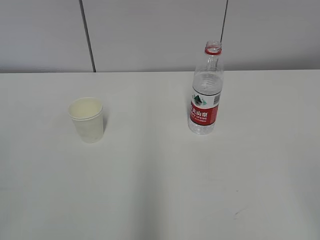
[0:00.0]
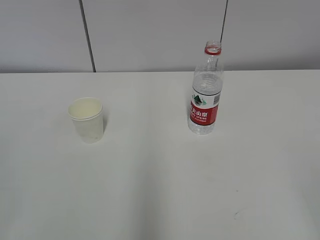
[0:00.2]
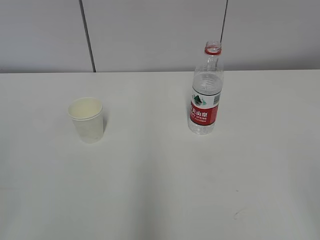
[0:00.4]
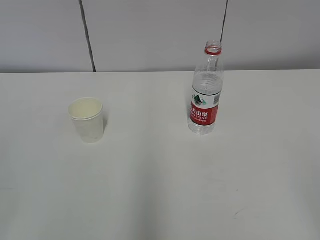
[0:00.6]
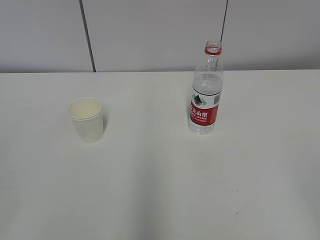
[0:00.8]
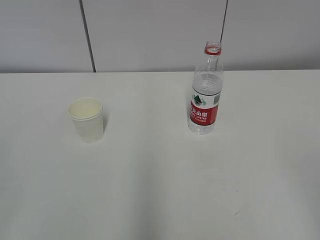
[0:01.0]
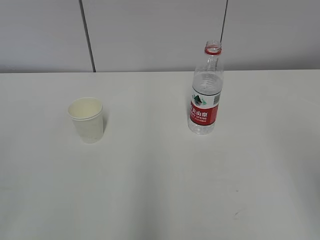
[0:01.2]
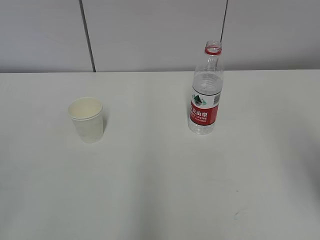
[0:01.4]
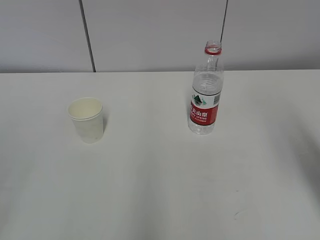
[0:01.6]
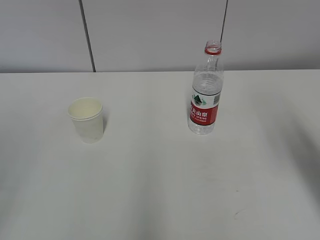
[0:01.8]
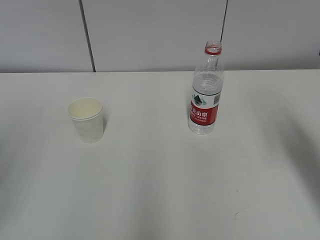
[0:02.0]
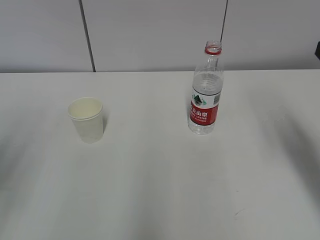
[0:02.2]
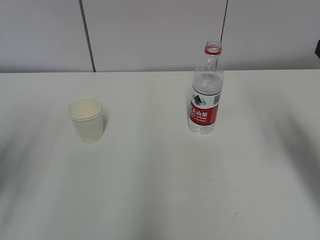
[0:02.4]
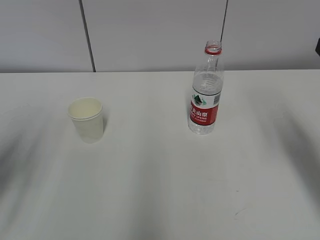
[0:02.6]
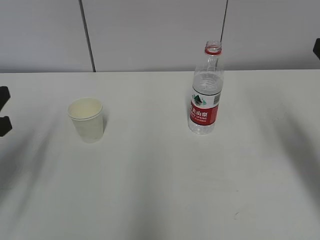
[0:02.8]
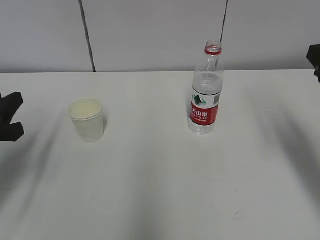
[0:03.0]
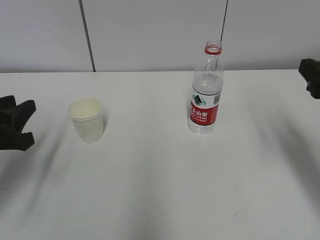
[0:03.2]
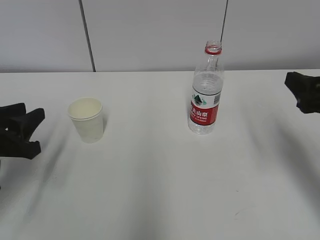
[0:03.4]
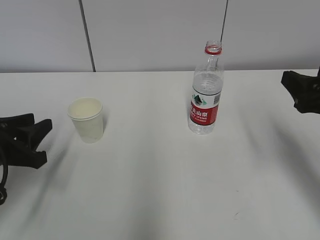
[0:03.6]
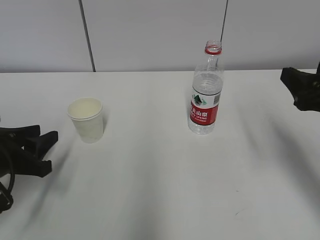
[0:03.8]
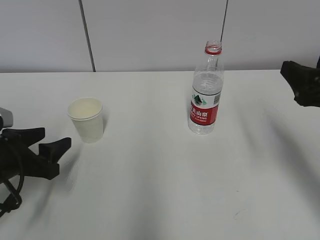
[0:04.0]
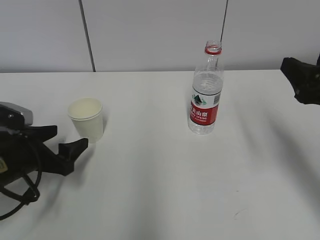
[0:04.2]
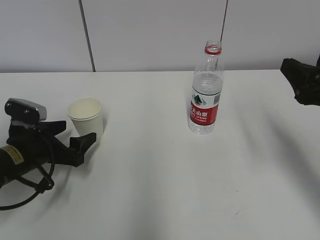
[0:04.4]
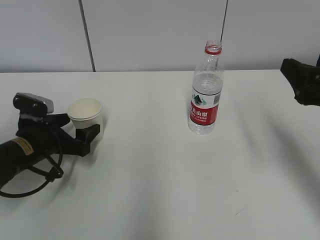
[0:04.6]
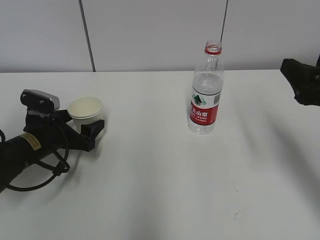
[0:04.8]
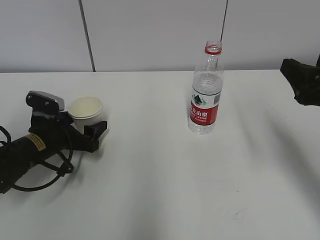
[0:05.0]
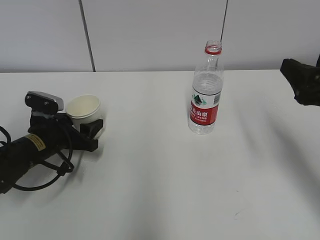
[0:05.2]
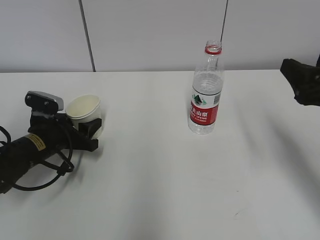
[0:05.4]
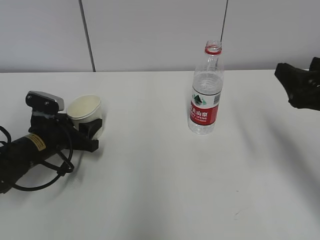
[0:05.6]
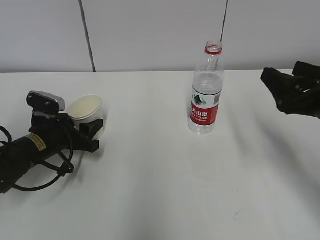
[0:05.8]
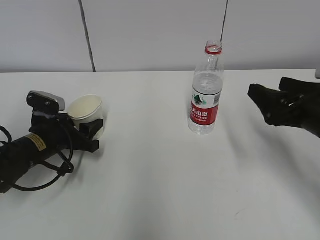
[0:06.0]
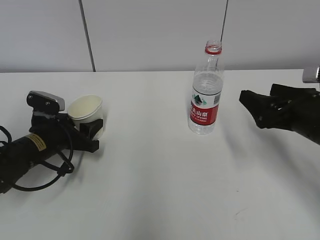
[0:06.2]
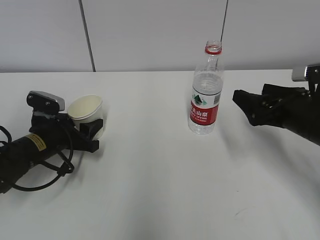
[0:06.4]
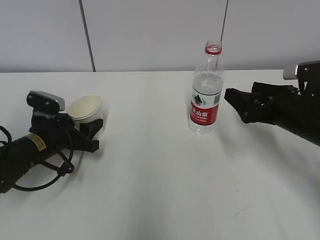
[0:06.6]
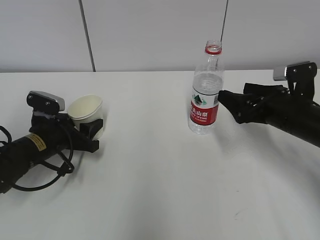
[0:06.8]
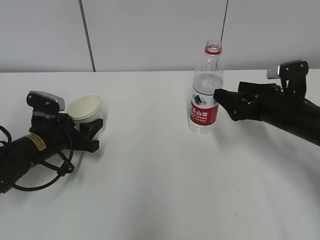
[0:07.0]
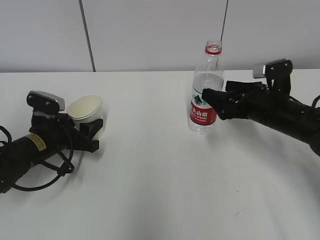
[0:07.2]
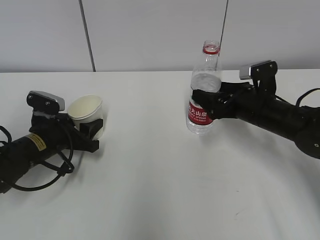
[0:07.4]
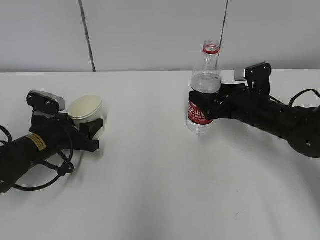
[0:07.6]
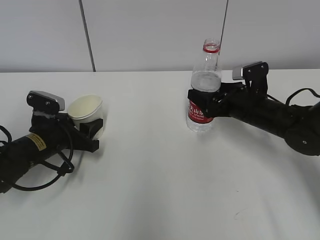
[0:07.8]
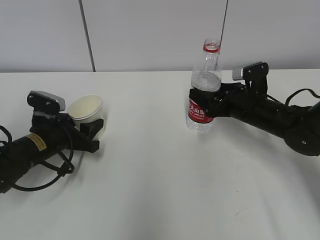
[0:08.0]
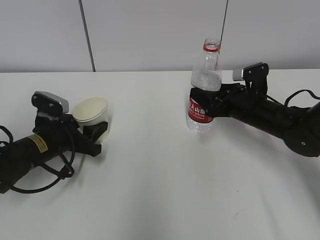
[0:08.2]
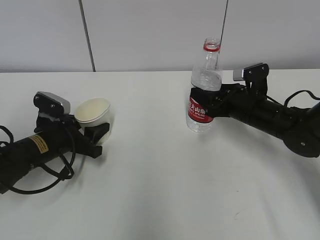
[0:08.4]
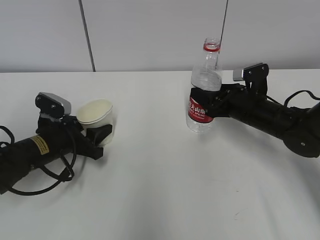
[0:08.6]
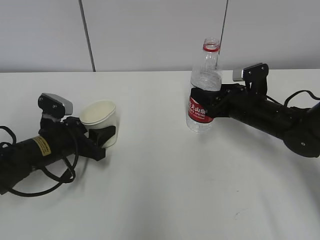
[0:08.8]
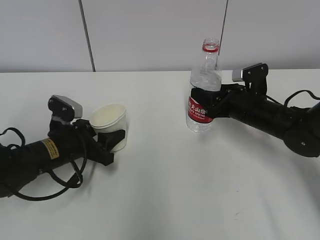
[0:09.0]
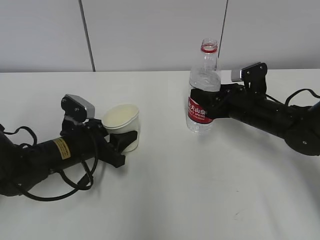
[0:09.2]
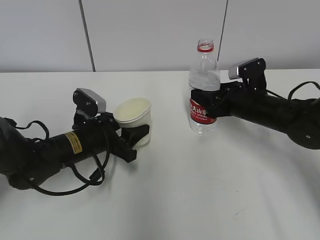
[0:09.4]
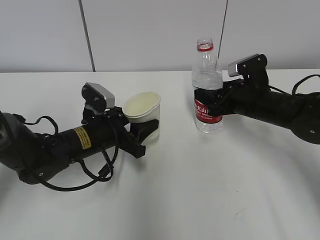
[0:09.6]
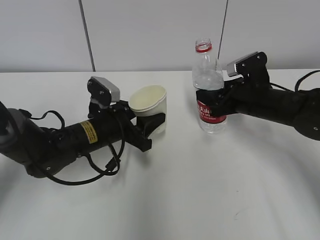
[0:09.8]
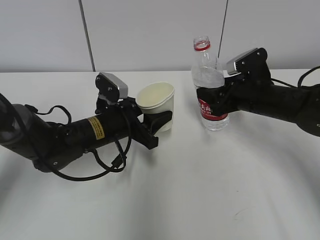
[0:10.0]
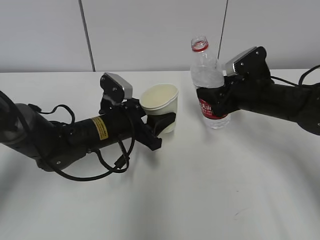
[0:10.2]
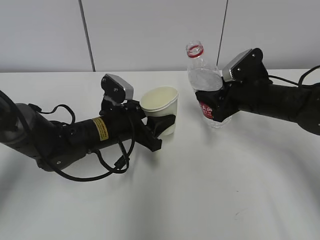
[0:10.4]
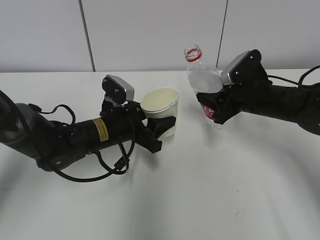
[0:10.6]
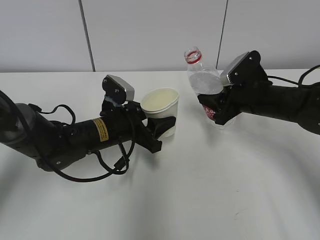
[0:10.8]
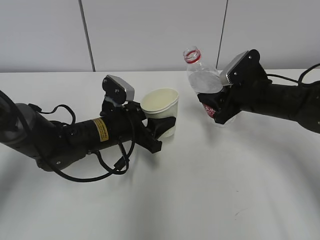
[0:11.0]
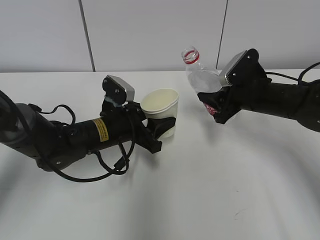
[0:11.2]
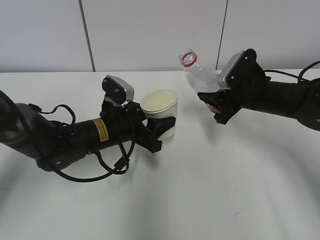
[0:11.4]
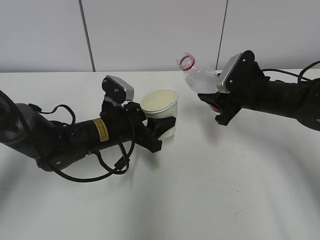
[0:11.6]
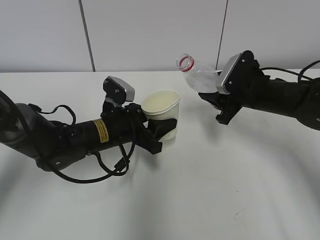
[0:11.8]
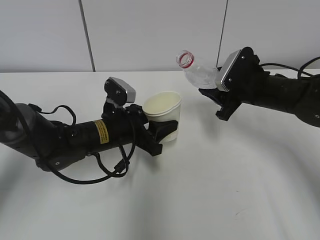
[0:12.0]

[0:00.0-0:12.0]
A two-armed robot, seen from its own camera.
Step, 0:00.0 to 0:07.2: Grab the paper cup with the left hand.
Step, 0:07.4 to 0:07.8: Grab the water bottle with the right hand.
0:01.6 to 0:03.0: The left gripper shifts about 25 cm forward and downward. Meanwhile the right gripper moves forward and downward, approximately 10 cm.
0:03.0 to 0:04.4: The left gripper travels downward and forward by some 10 cm, and opens.
0:04.4 to 0:06.0: The left gripper changes place by some 5 cm, and closes up. The right gripper shifts by approximately 5 cm.
0:06.0 to 0:07.6: The right gripper is displaced forward, downward and to the left by approximately 15 cm.
0:07.6 to 0:09.0: The right gripper closes its fingers.
0:09.0 to 0:10.4: The left gripper heads to the right, covering some 10 cm.

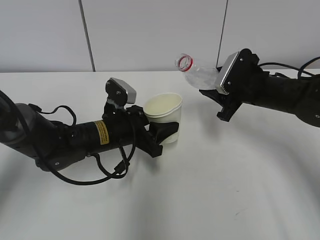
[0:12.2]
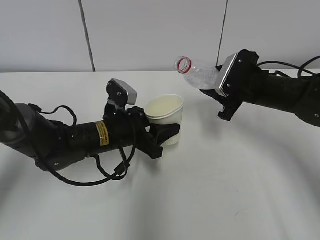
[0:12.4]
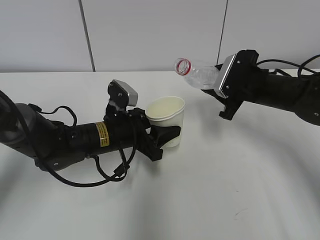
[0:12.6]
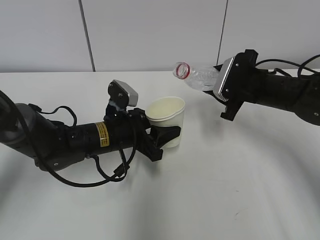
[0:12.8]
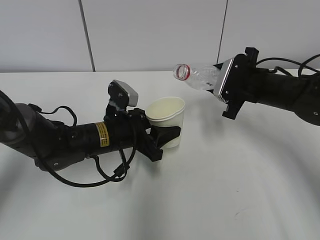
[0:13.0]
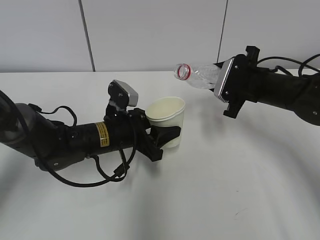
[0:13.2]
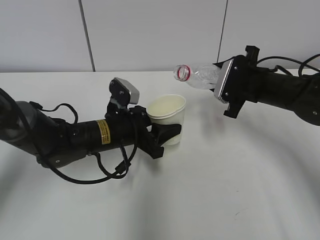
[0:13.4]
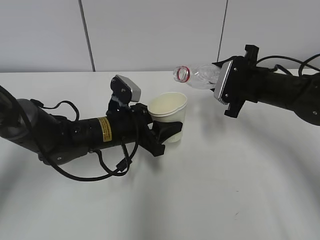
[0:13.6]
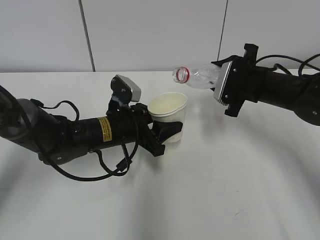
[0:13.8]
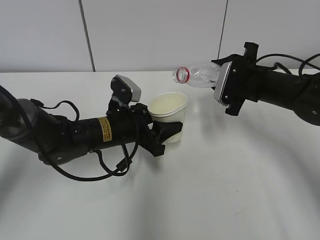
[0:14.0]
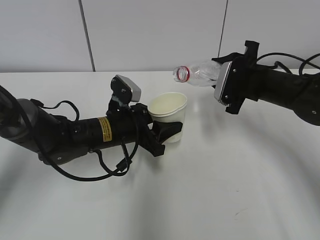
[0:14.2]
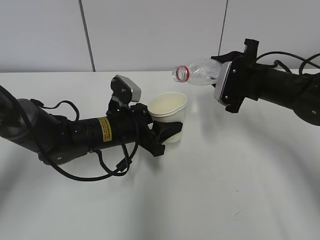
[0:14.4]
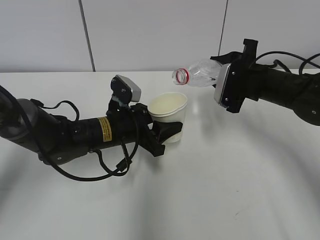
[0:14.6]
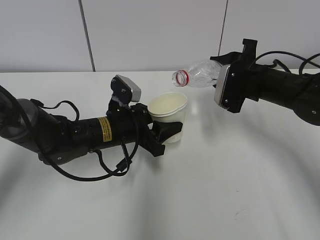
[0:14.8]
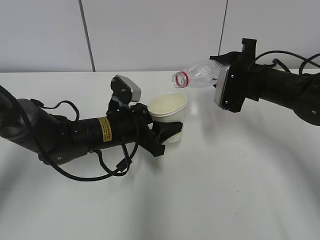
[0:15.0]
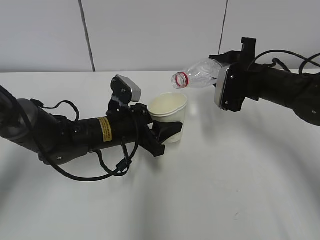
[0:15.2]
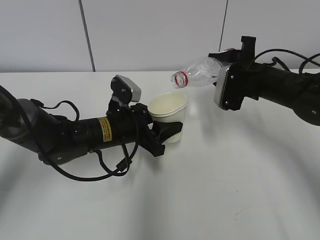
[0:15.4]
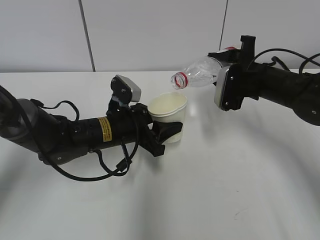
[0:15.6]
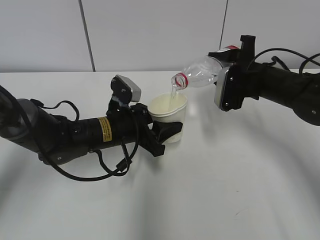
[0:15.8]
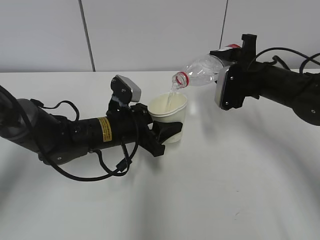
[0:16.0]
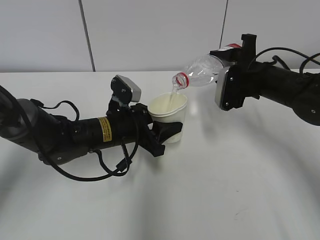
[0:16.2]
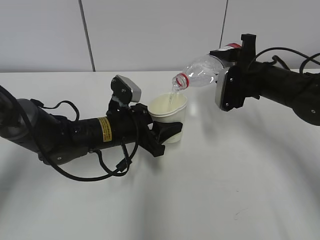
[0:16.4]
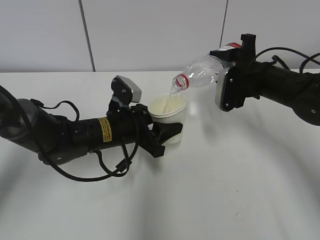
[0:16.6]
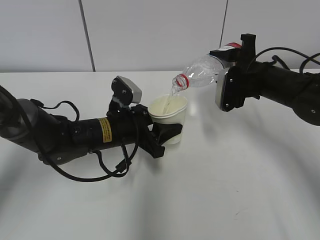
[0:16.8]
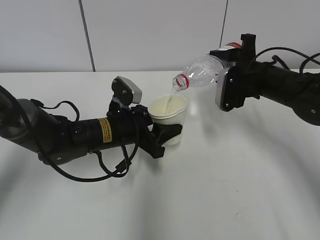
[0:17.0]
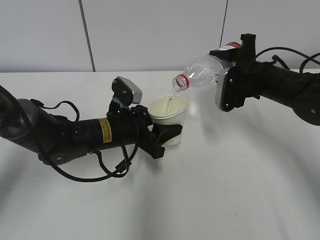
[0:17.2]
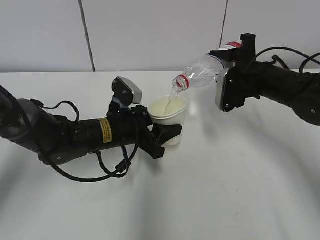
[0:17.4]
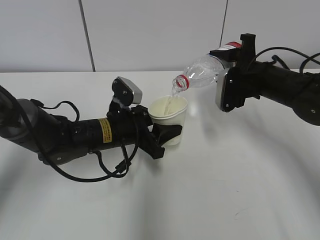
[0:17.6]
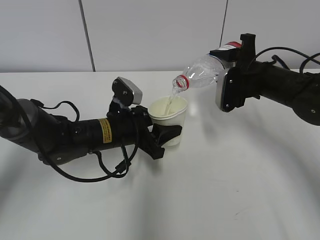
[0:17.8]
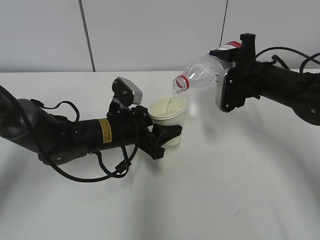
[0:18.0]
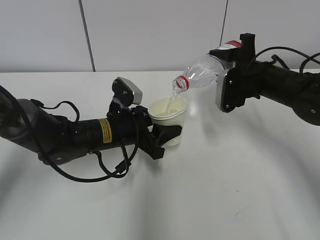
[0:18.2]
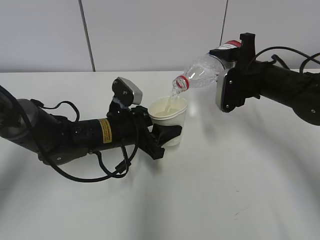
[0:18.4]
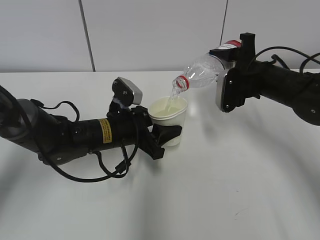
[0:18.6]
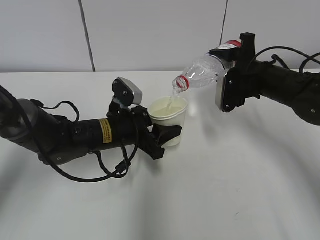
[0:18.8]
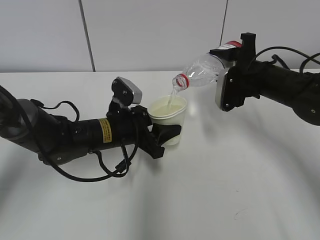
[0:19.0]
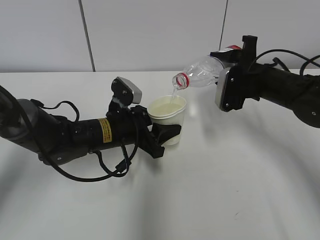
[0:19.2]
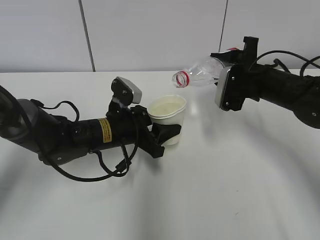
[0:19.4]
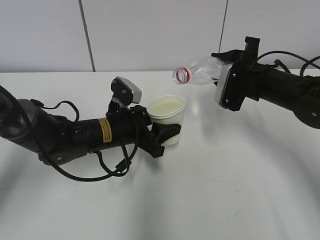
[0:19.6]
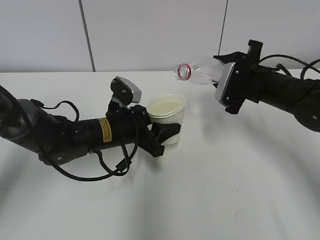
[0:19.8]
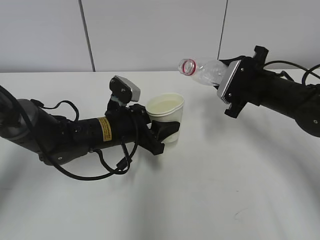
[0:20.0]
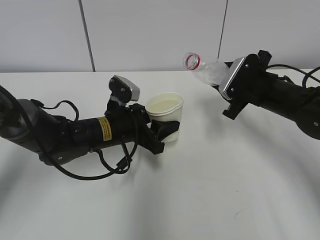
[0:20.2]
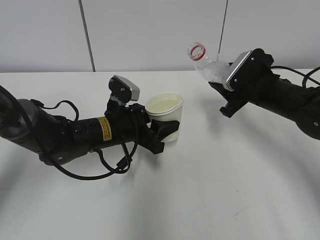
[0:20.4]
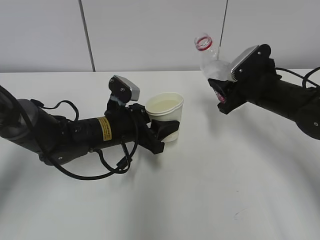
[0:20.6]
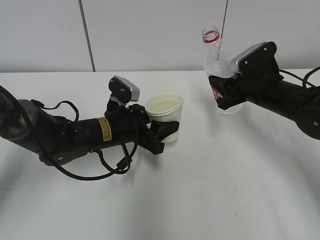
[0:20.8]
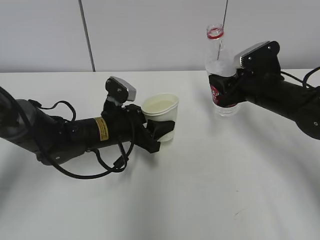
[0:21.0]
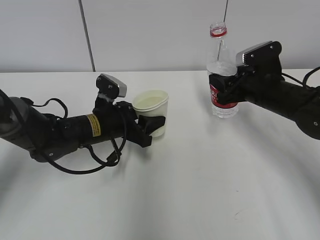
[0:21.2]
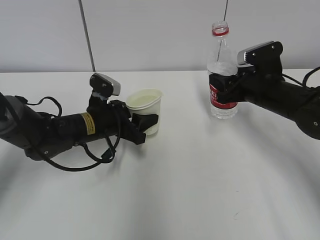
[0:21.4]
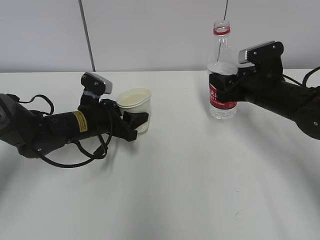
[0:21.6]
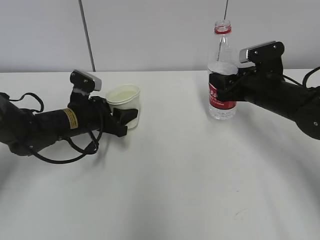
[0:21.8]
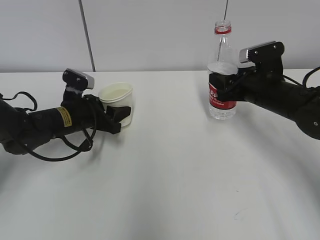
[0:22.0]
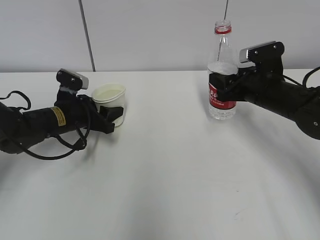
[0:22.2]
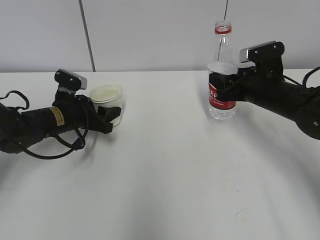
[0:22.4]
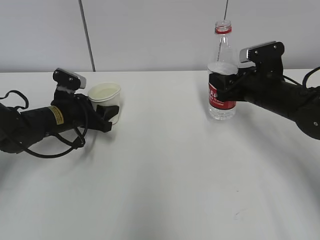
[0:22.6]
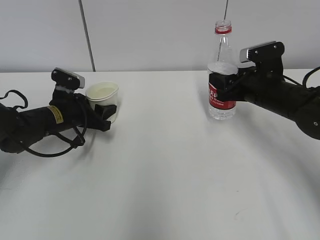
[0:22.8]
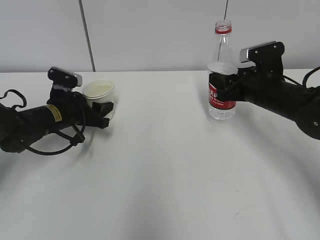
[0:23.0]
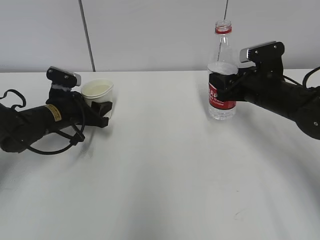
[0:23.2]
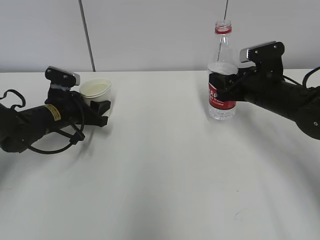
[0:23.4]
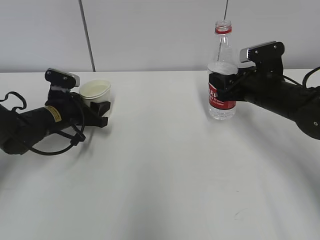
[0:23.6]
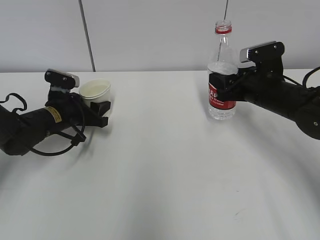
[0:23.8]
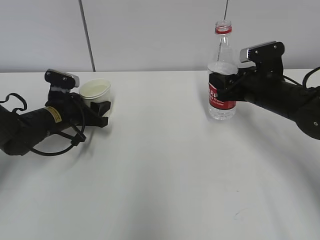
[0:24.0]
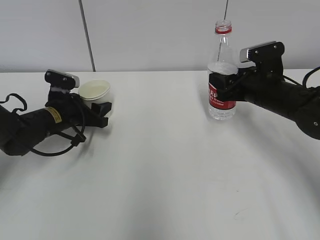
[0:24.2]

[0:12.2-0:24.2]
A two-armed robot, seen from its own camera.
Step, 0:13.2 to 0:16.0: Fill water with the left hand.
Step, 0:13.2 to 0:16.0: Pour water with the right hand.
Step, 0:18.2 to 0:20.2: Place the water bottle with the right hand.
Step, 0:20.4 to 0:23.0: Place the paper cup with the left hand.
0:13.8 to 0:15.2: The grippers stay close to where they were, moving slightly.
0:15.2 to 0:16.6: The grippers move only a little.
0:16.6 to 0:18.2: The two grippers keep their place.
0:18.2 to 0:19.8: The grippers move only a little.
0:21.2 to 0:22.6: The left gripper goes some 10 cm to the left.
0:22.6 to 0:24.2: The grippers make only small movements.
